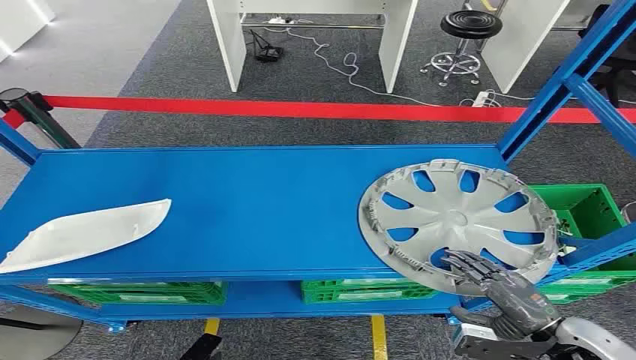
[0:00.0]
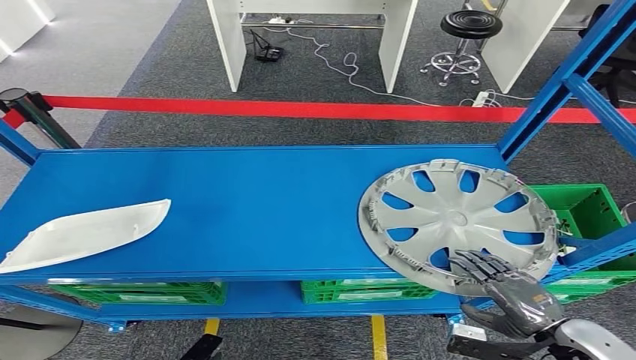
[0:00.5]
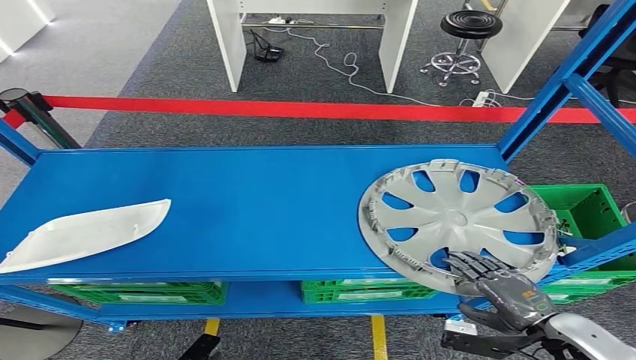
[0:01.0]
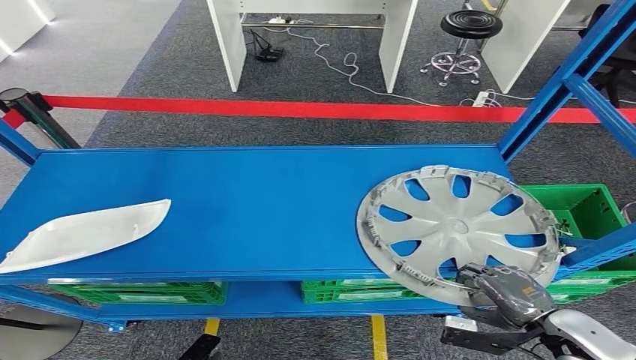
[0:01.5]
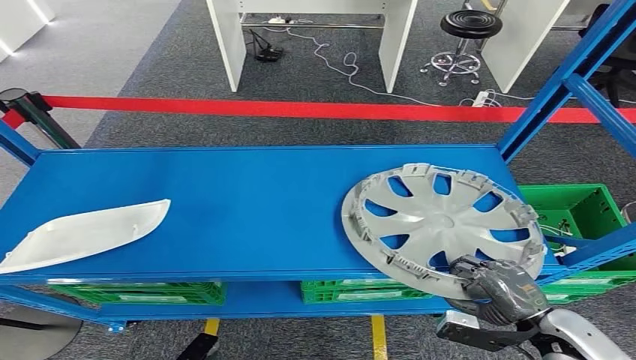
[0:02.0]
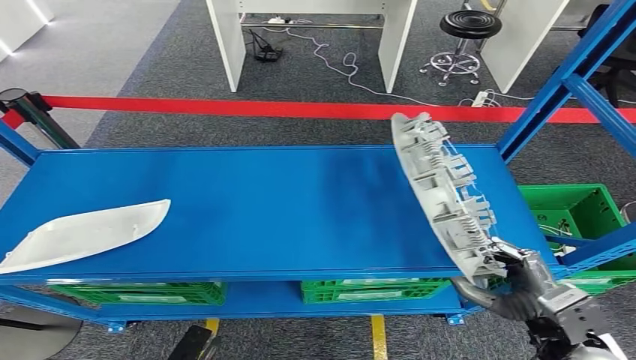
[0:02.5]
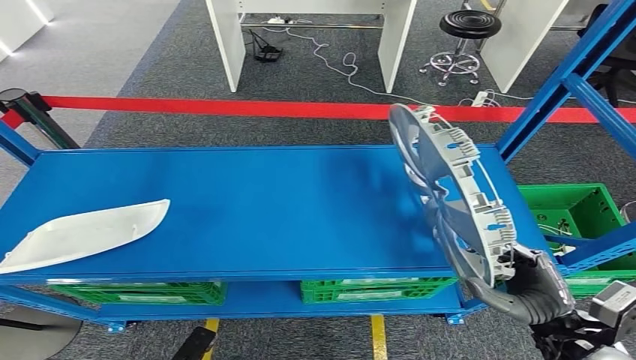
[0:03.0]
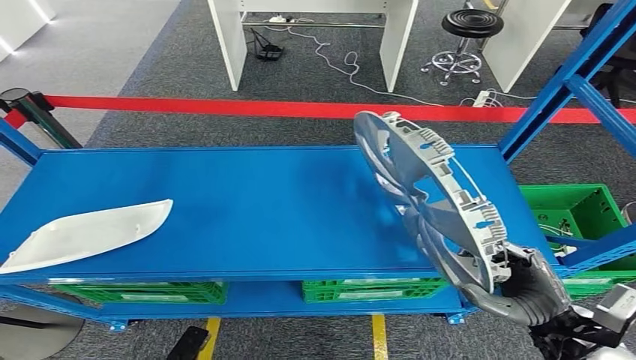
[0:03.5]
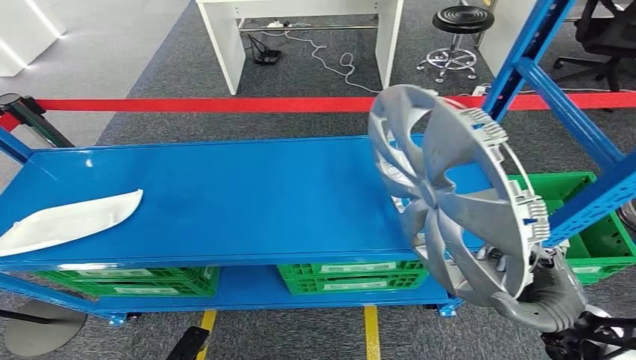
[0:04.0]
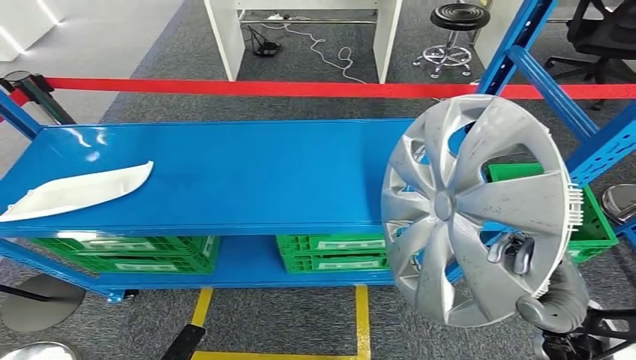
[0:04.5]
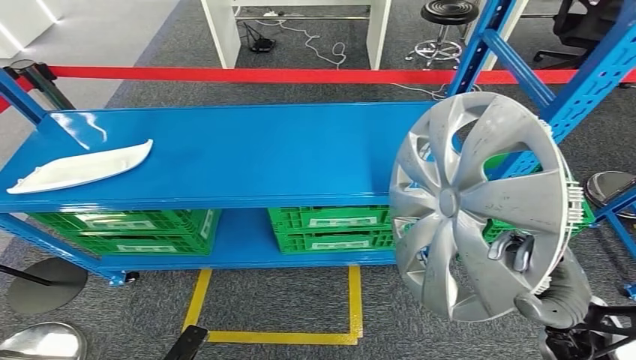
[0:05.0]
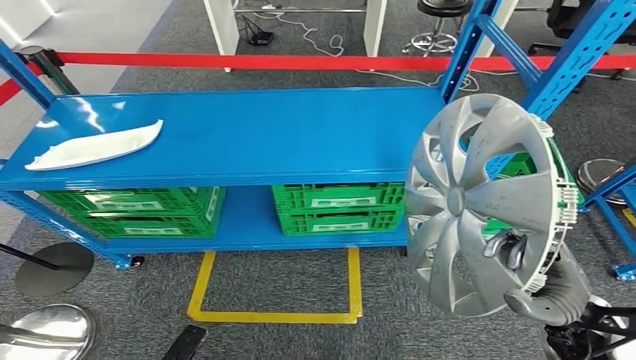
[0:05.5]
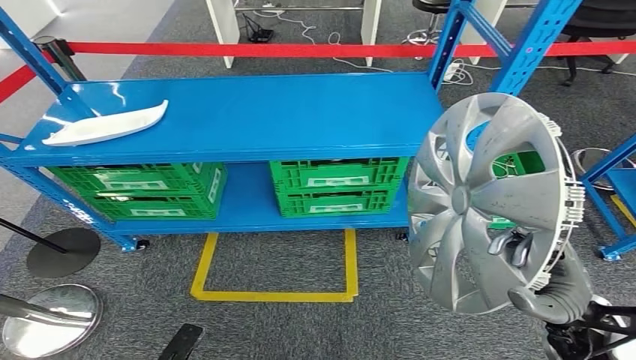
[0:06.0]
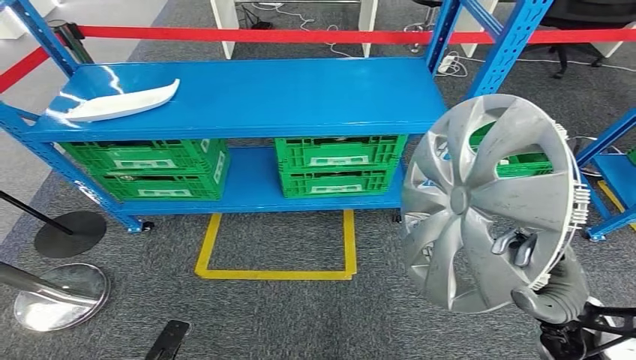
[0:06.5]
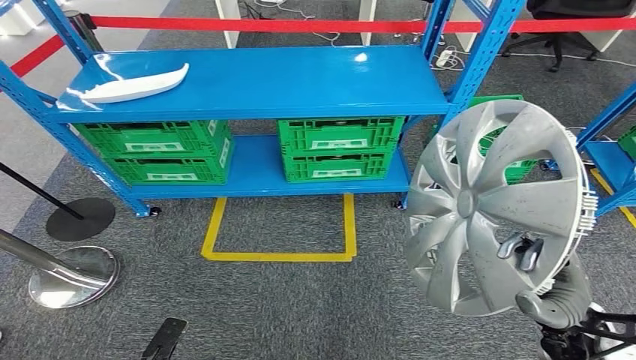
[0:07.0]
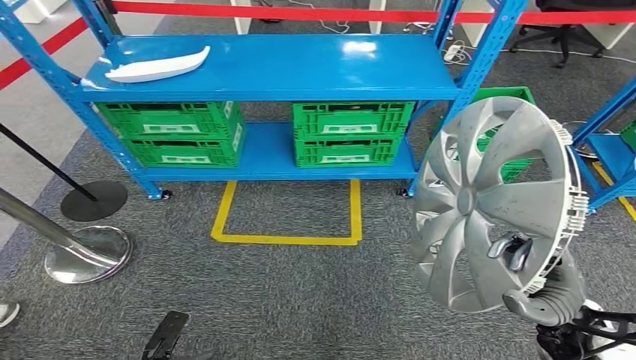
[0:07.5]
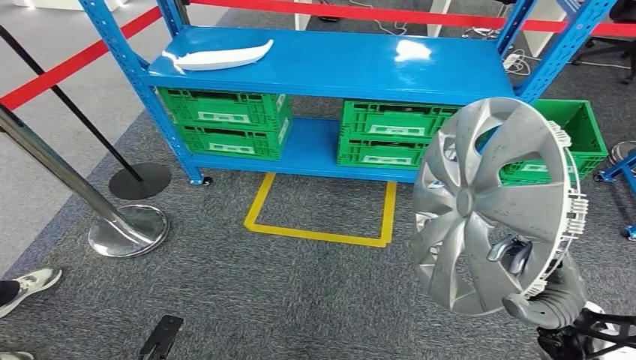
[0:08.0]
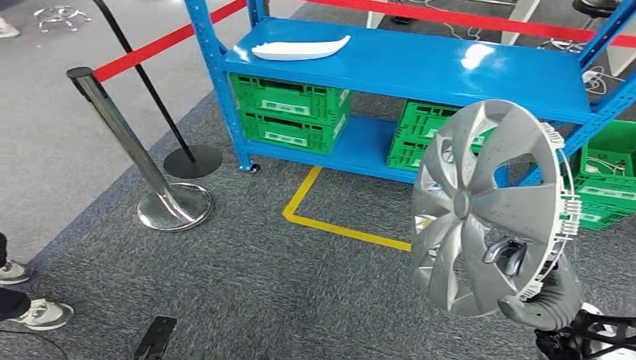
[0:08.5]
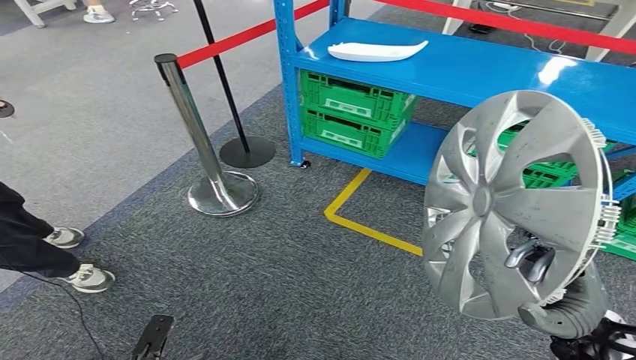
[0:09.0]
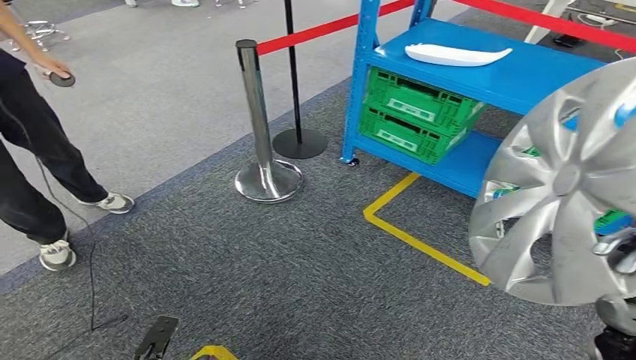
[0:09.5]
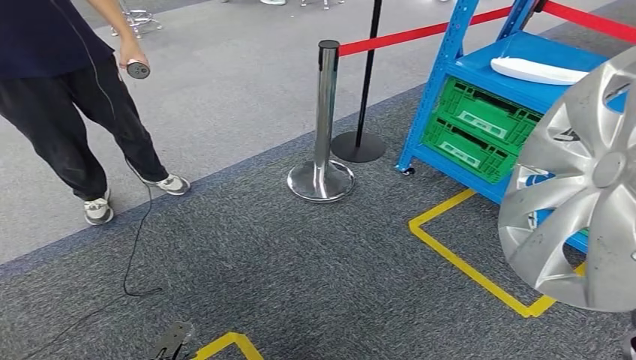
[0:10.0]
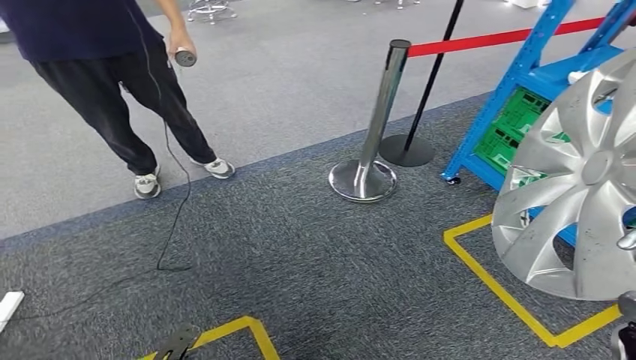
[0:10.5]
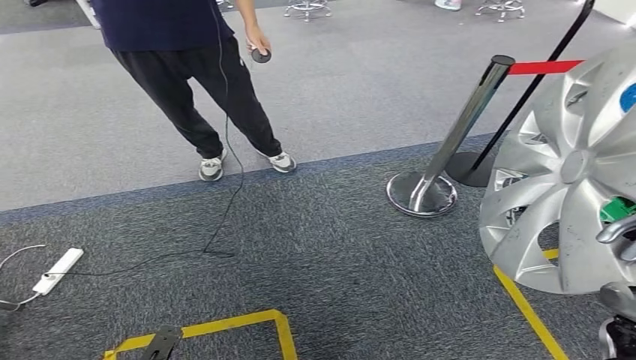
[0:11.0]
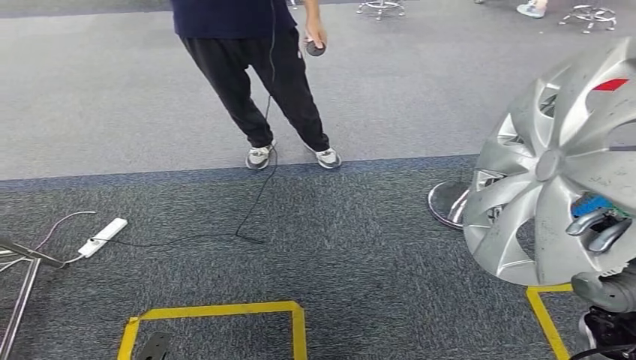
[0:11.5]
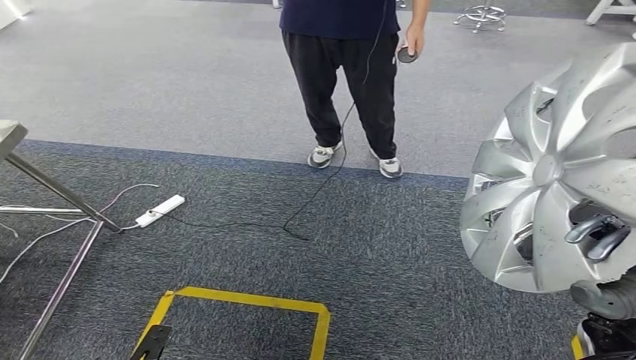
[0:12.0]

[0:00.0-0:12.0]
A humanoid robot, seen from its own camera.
Step, 0:00.0 to 0:05.5: Pick up the small component from the shelf.

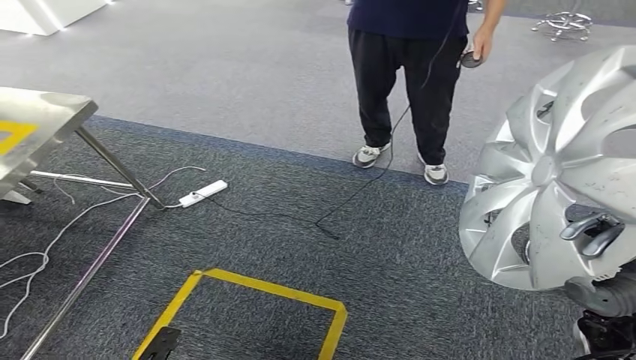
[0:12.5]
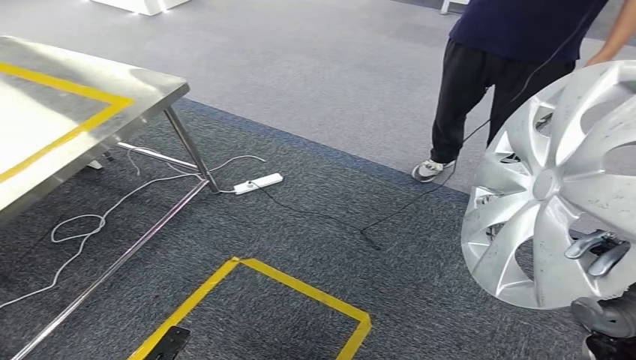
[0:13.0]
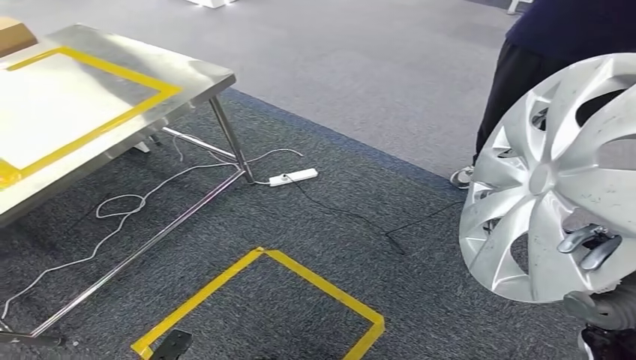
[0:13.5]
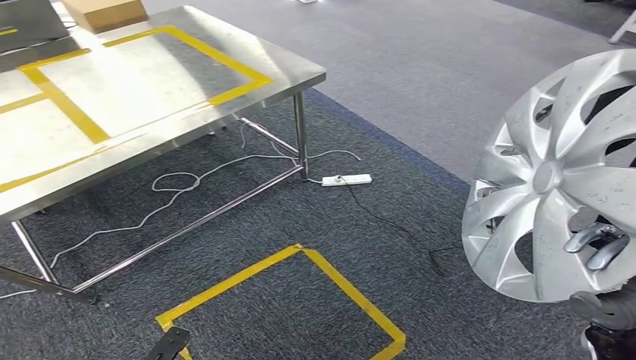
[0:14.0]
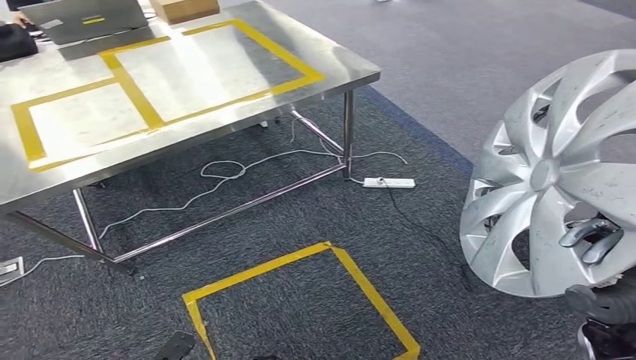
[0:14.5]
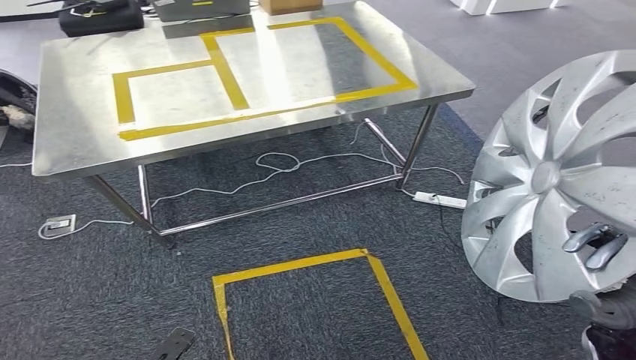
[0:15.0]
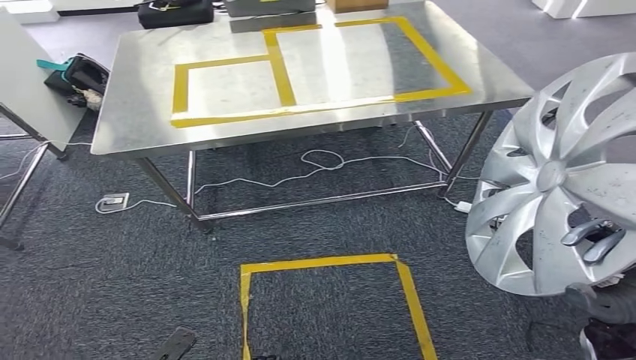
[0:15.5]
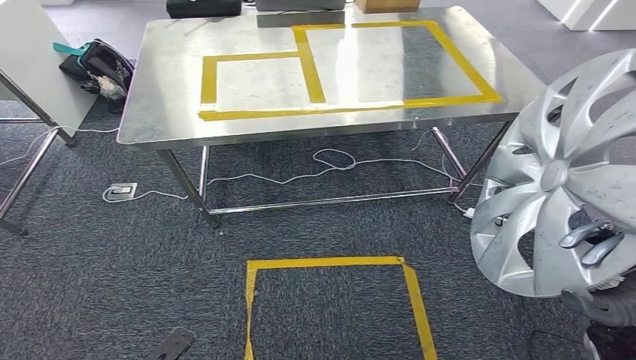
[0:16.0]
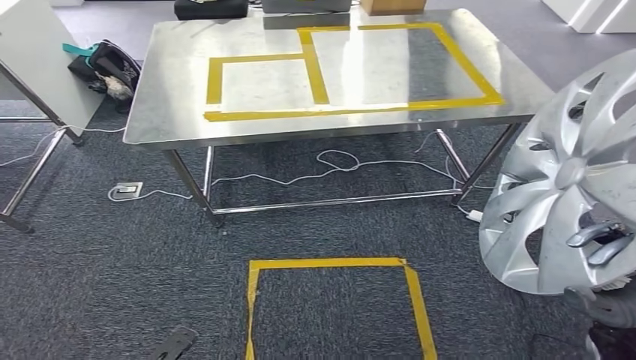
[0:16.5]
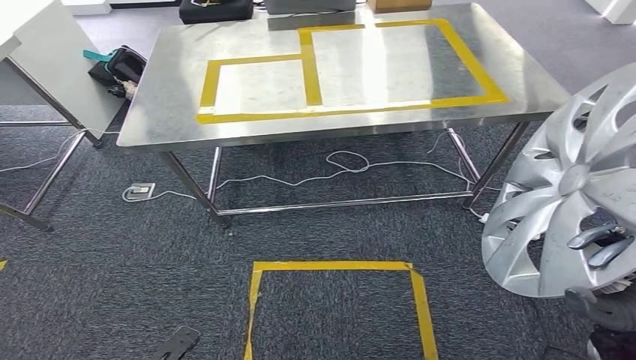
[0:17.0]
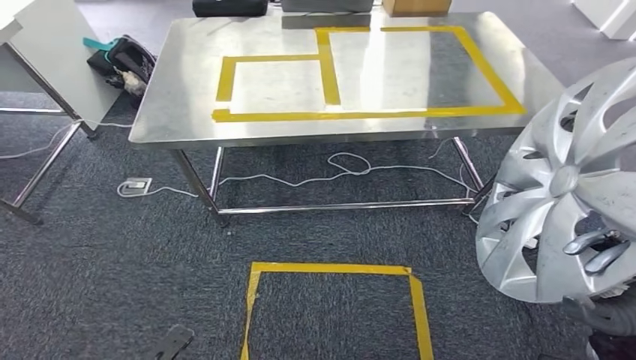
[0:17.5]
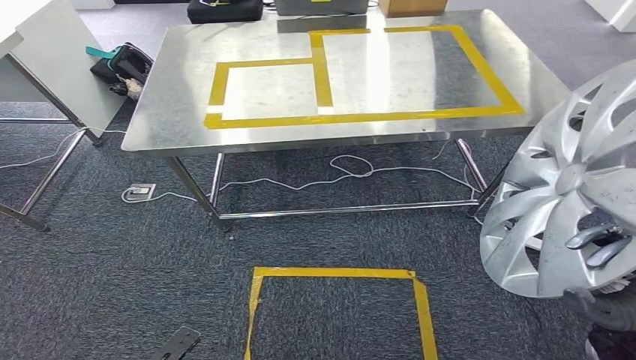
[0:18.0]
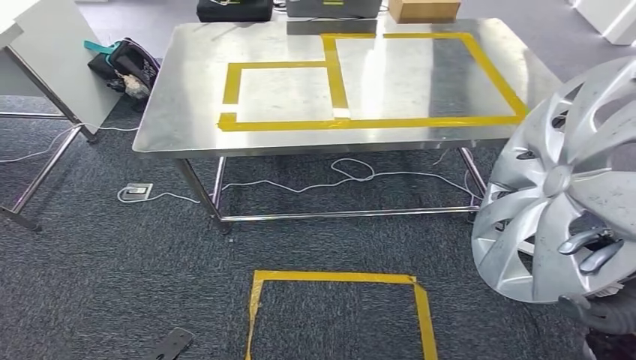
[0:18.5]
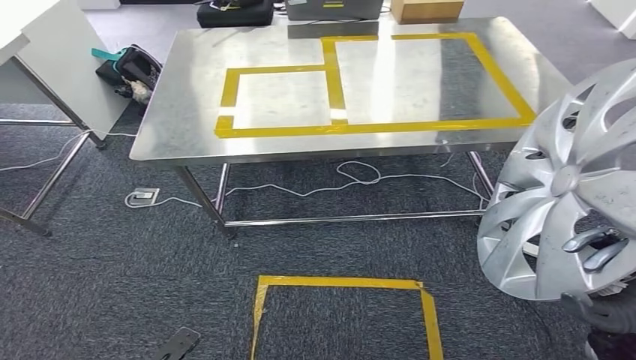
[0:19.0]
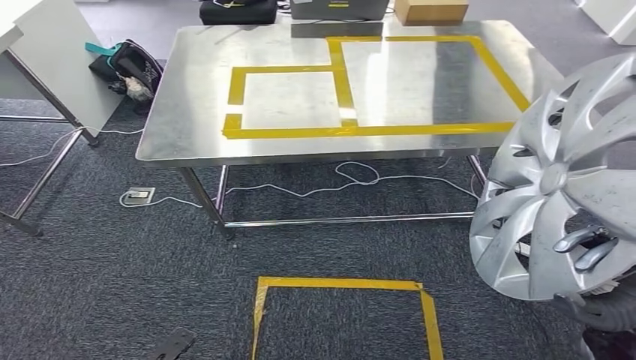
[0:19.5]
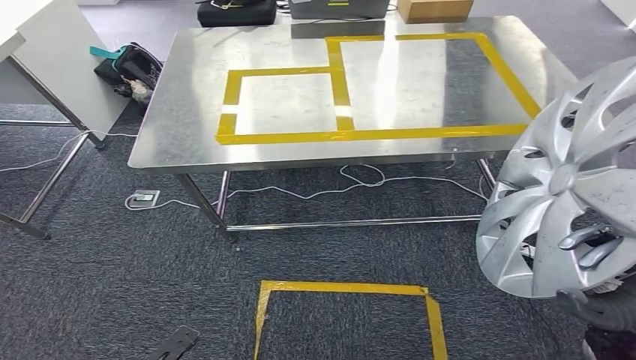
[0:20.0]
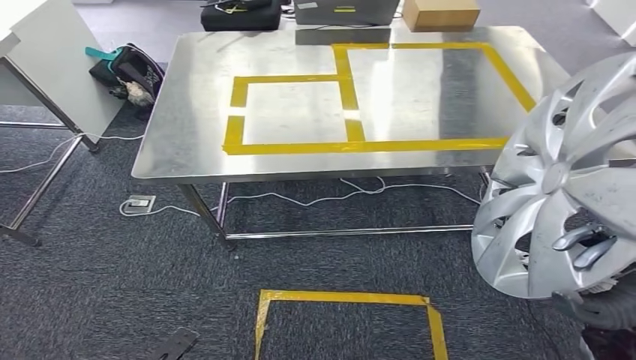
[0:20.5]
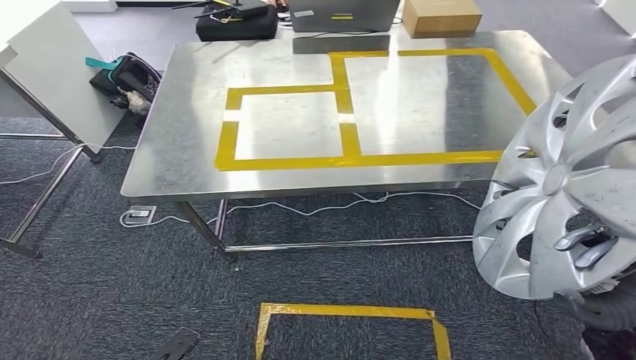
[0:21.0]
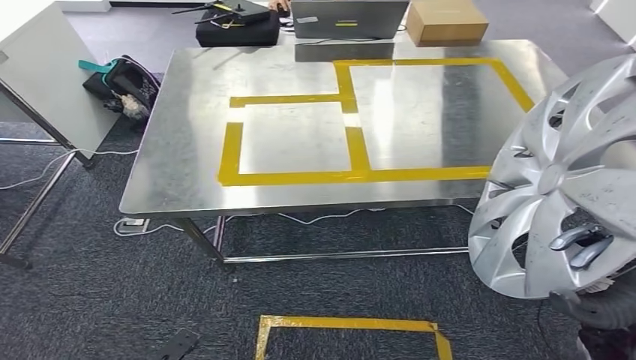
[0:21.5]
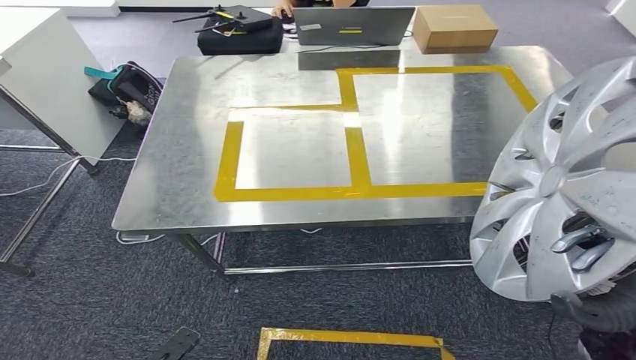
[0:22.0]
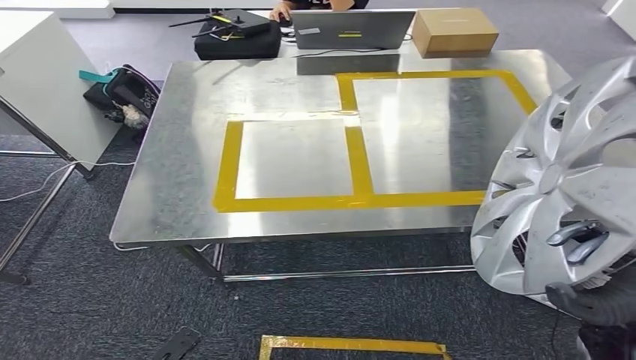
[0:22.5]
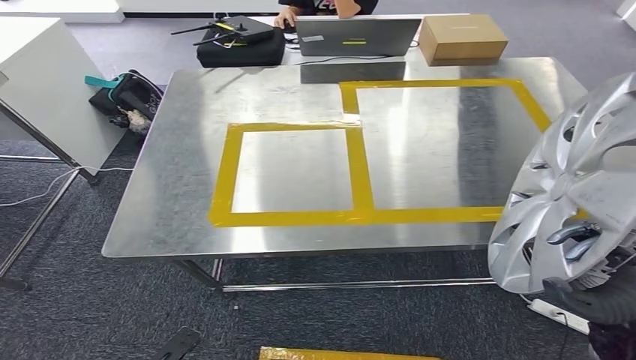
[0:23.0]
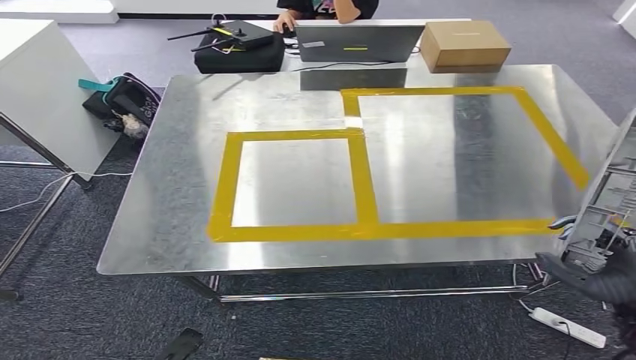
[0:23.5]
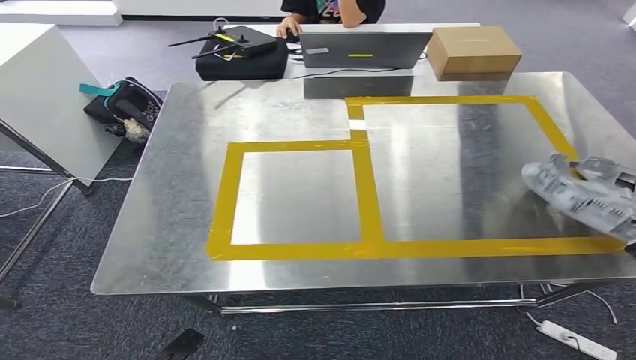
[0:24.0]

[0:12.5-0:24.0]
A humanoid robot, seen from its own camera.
Step, 0:12.5 to 0:21.0: Move the small component to the workbench.
